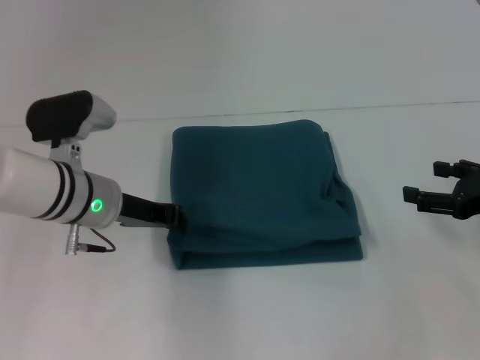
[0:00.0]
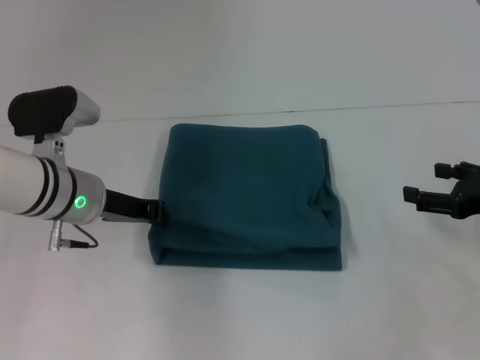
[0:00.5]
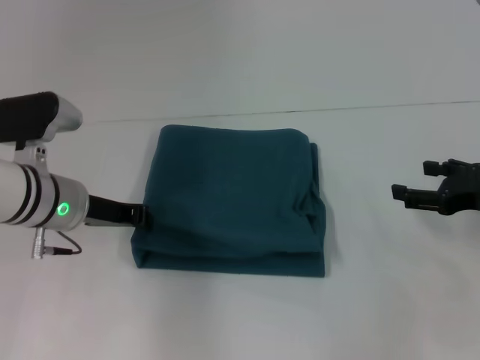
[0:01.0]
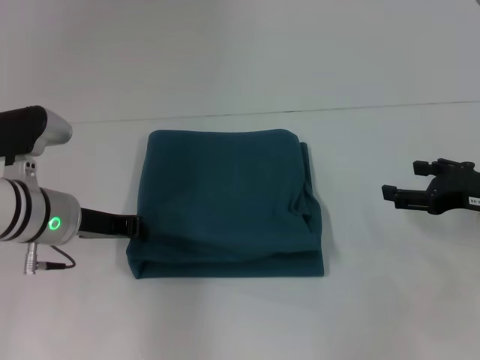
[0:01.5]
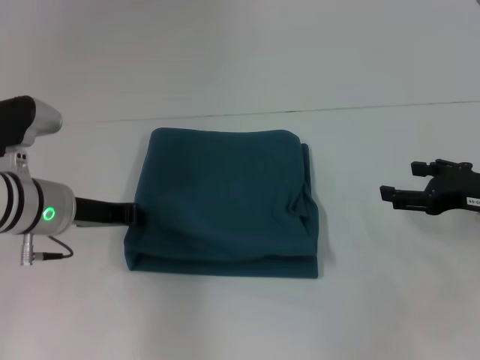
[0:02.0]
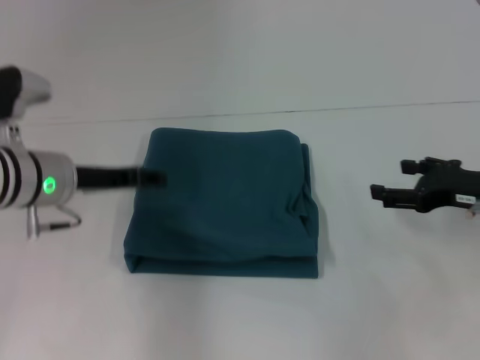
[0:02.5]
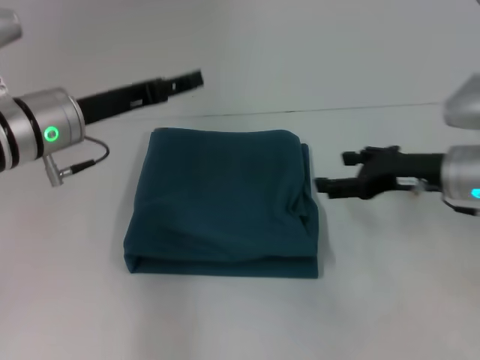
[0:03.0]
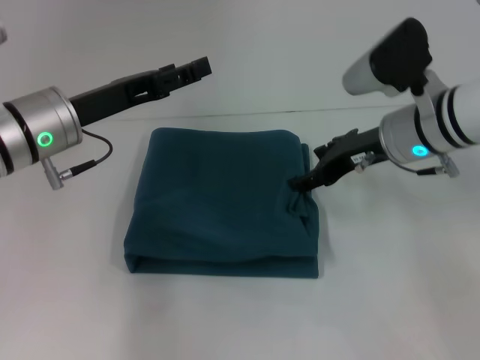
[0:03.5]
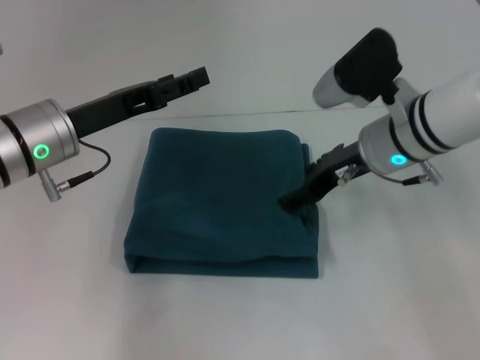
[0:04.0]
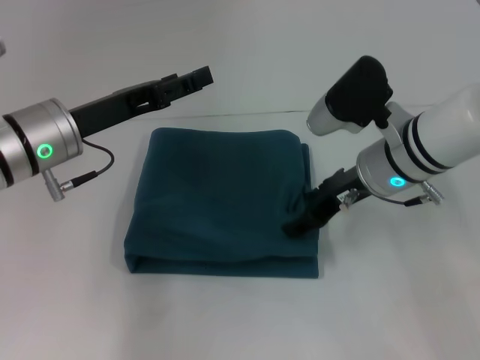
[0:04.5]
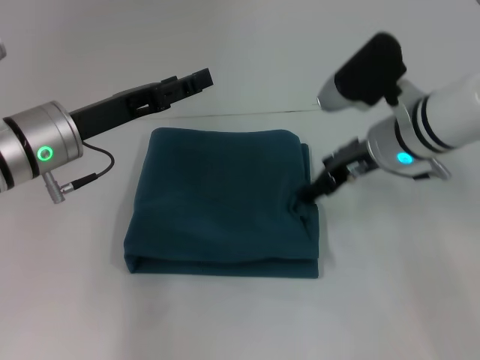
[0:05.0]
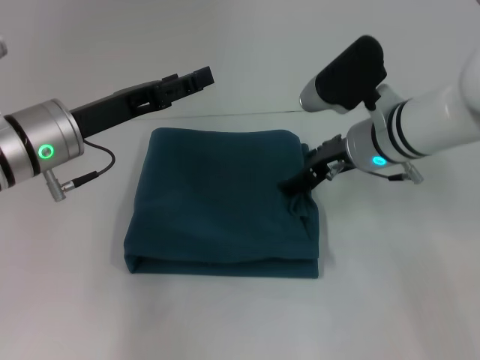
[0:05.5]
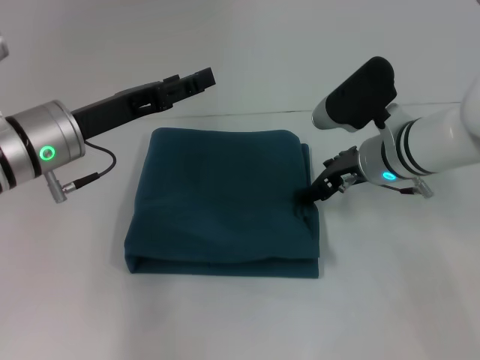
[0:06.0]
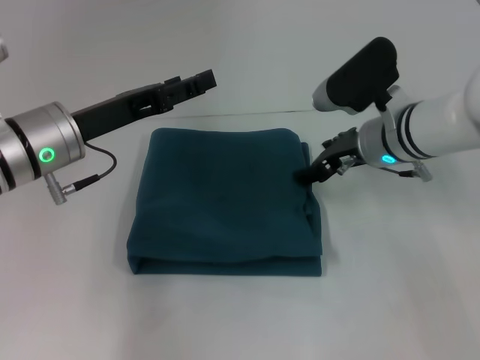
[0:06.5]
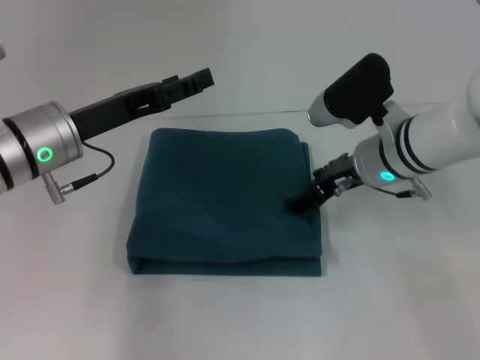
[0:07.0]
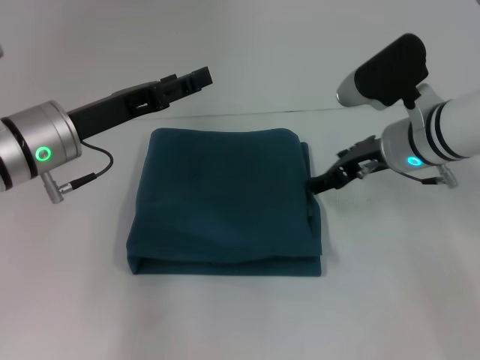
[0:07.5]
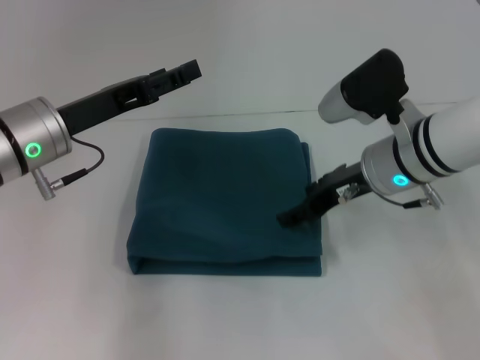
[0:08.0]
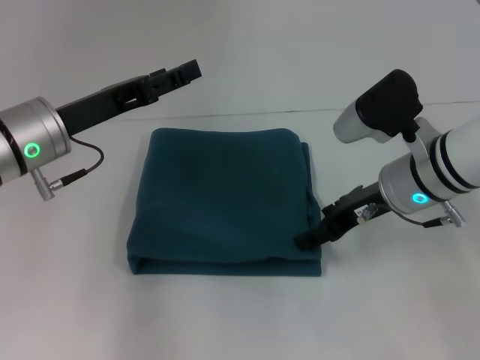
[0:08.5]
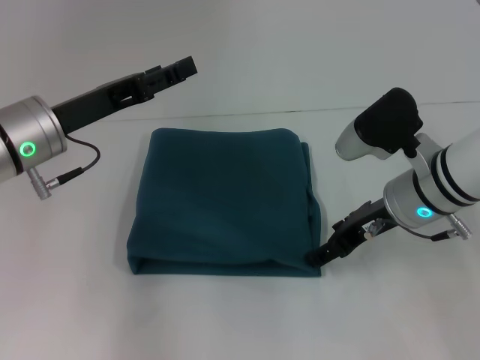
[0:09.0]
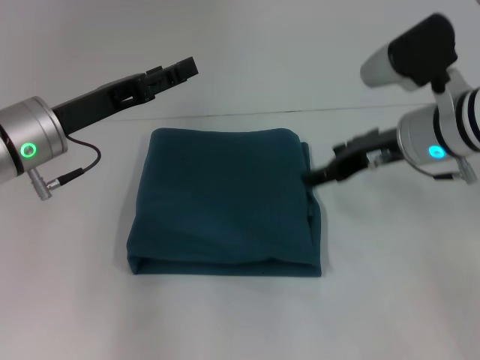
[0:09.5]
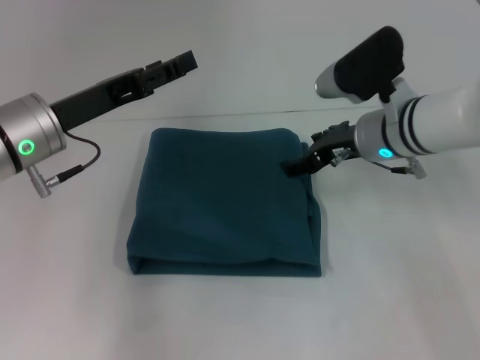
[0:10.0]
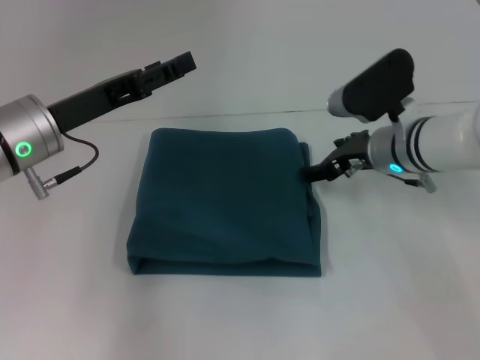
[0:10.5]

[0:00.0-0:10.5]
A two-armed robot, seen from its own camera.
0:00.0 to 0:02.0: The grippers make only small movements.
0:02.0 to 0:04.0: The right gripper moves to the left and forward, about 15 cm. The left gripper is displaced upward by roughly 5 cm, and opens.
0:04.0 to 0:06.5: The grippers make only small movements.
0:06.5 to 0:08.5: The right gripper moves backward, about 5 cm.
0:08.5 to 0:10.5: The right gripper moves forward, some 5 cm.

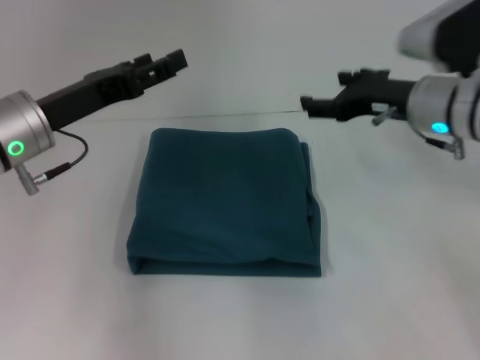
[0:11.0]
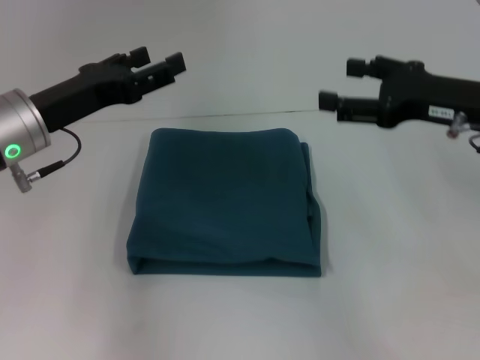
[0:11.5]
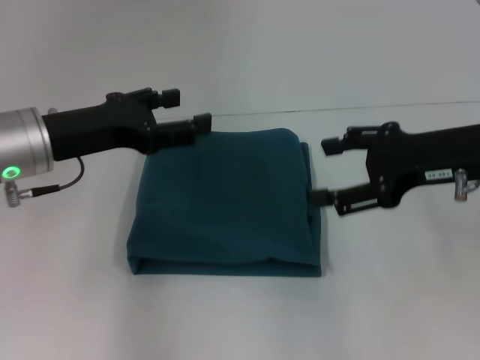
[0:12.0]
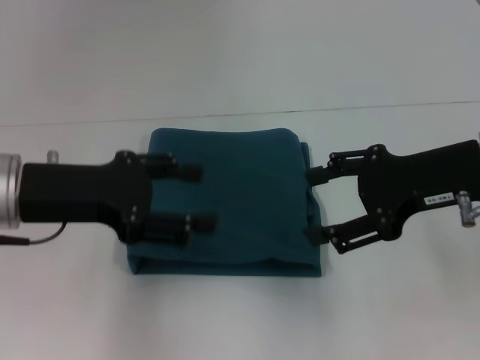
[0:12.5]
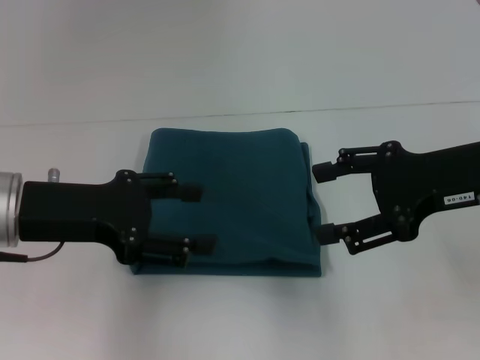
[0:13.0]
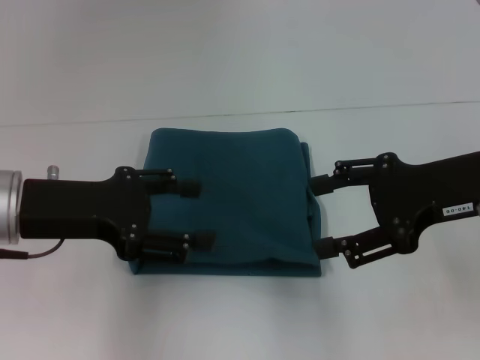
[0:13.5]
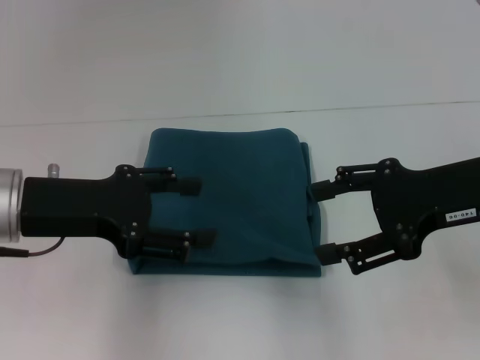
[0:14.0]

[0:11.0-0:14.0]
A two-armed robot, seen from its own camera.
0:11.0 to 0:12.5: The right gripper moves backward, about 10 cm. Meanwhile the left gripper heads backward, covering approximately 5 cm.
0:12.5 to 0:14.0: There are only small adjustments of the grippers.

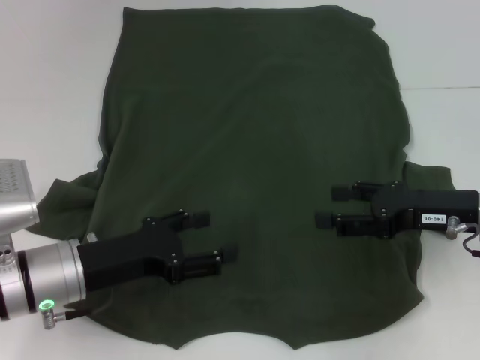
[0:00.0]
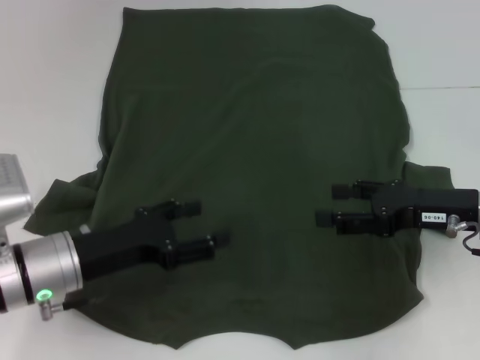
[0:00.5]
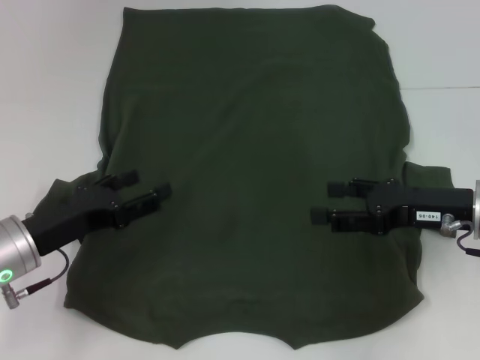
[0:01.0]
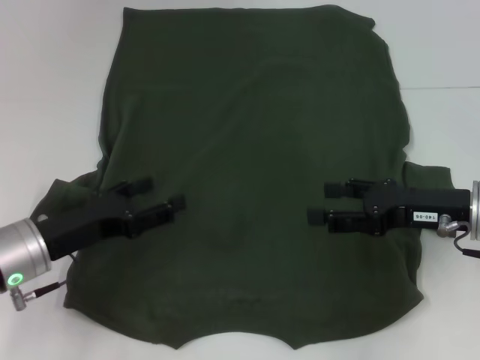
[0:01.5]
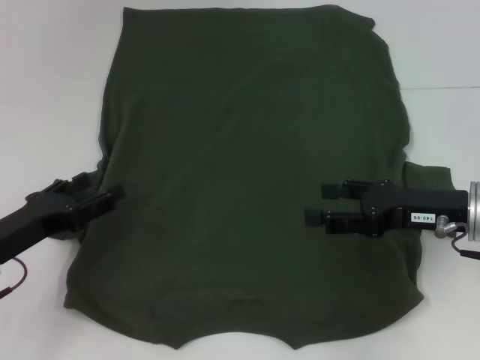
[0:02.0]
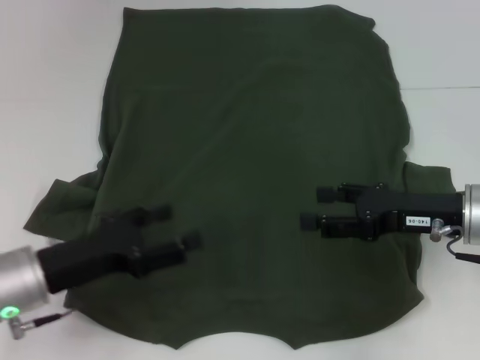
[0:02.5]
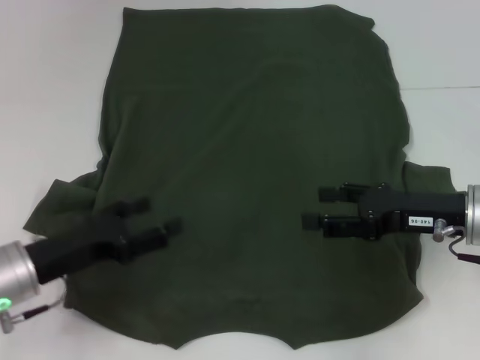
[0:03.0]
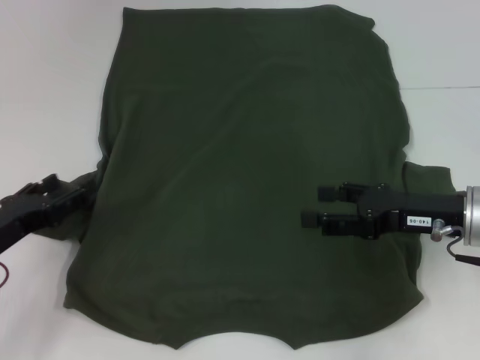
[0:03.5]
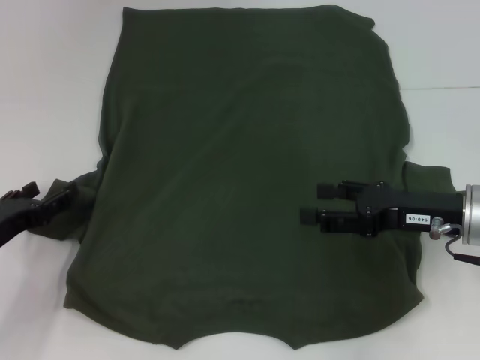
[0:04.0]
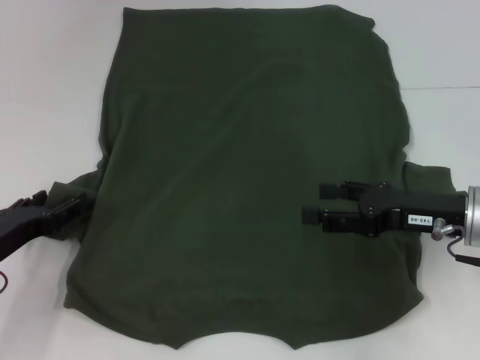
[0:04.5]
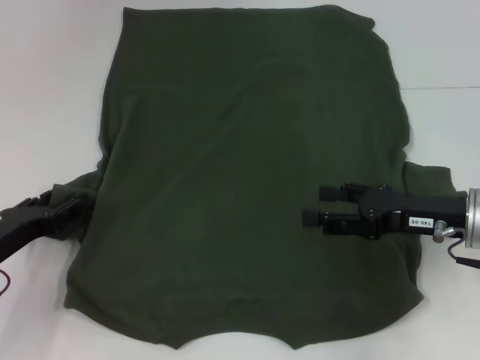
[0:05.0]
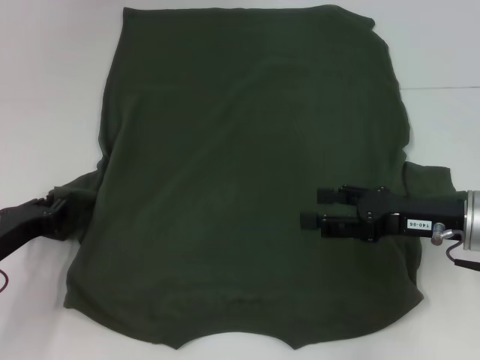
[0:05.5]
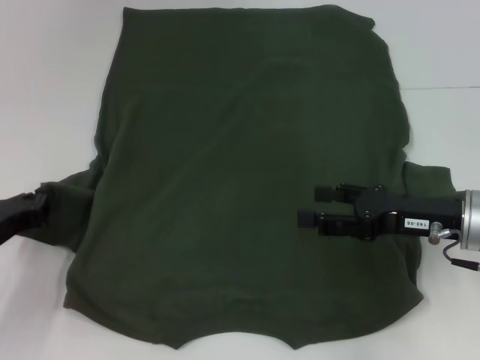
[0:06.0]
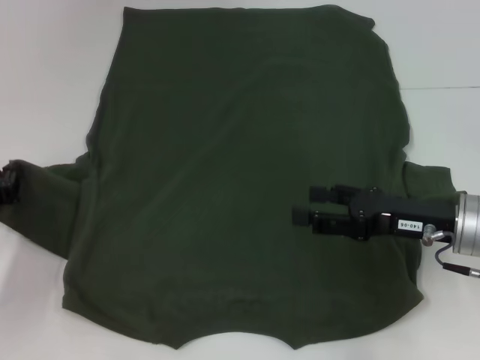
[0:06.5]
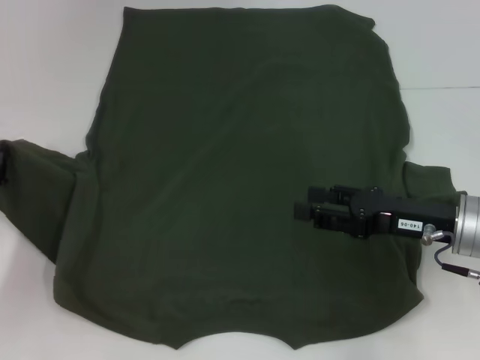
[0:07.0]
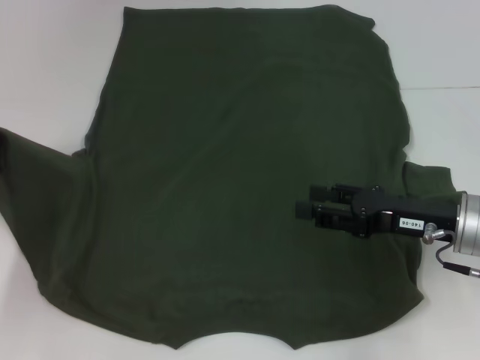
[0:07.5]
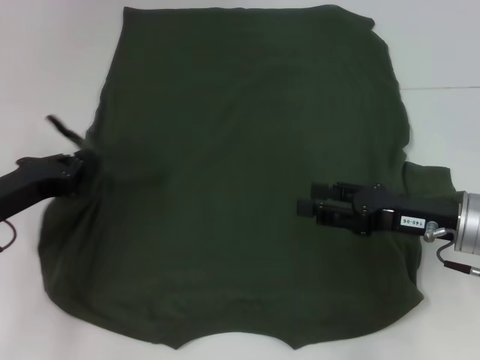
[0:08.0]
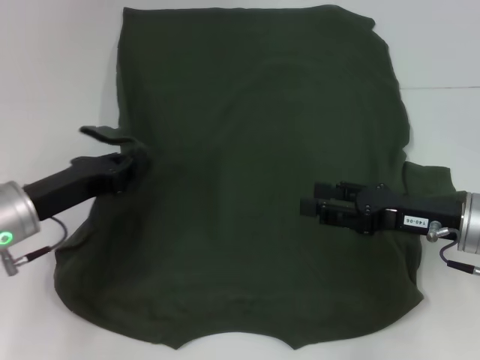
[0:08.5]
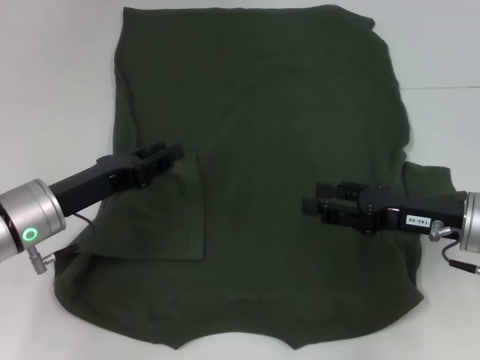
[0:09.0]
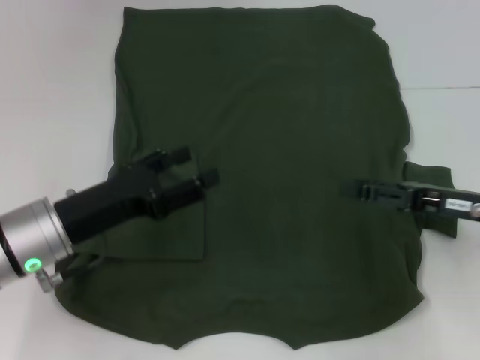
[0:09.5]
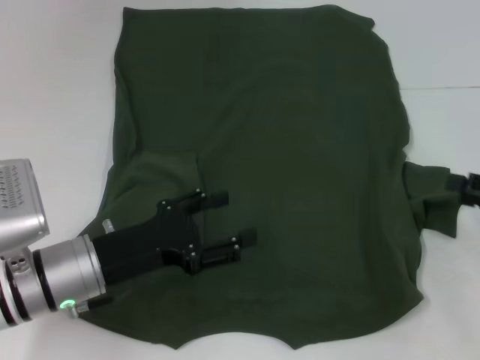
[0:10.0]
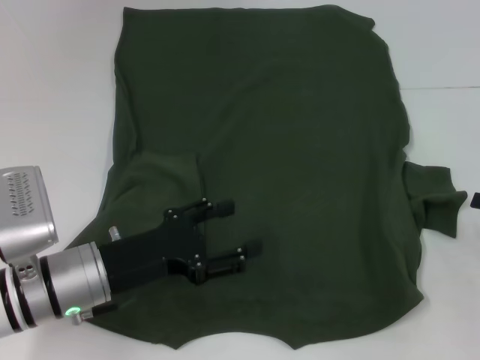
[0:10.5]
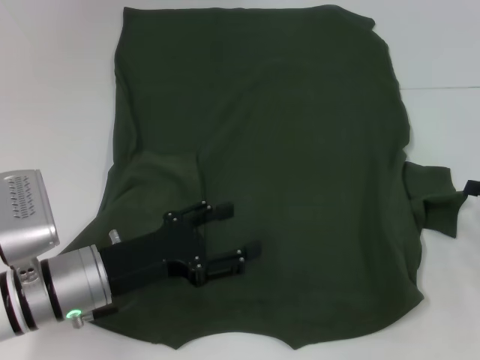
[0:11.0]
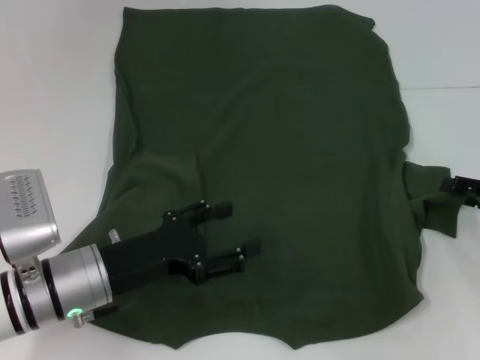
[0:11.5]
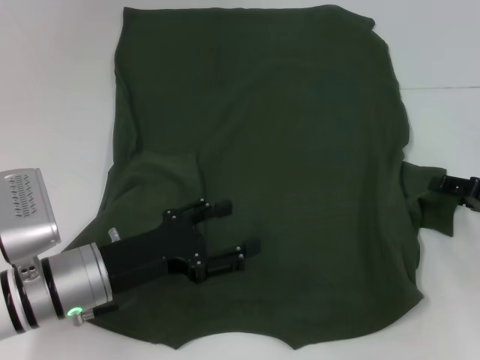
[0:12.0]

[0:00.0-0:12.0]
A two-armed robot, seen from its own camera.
Step, 0:00.0 to 0:08.5: Fold the bottom left sleeve with your left hand.
0:00.0 to 0:02.0: The left gripper travels to the left by some 10 cm.
0:04.0 to 0:06.0: The left gripper closes its fingers.
0:06.0 to 0:08.0: The left gripper shifts by roughly 5 cm.
0:08.0 to 0:10.0: Both grippers move to the right, roughly 10 cm. The left gripper opens up.
0:10.0 to 0:12.0: The right gripper shifts by roughly 5 cm.
